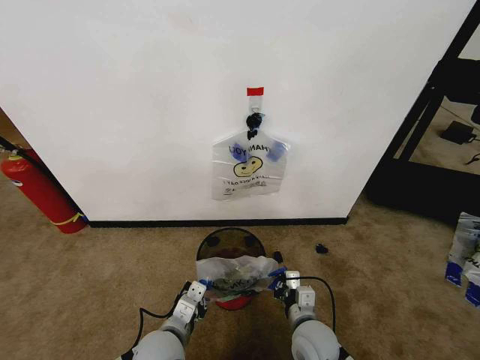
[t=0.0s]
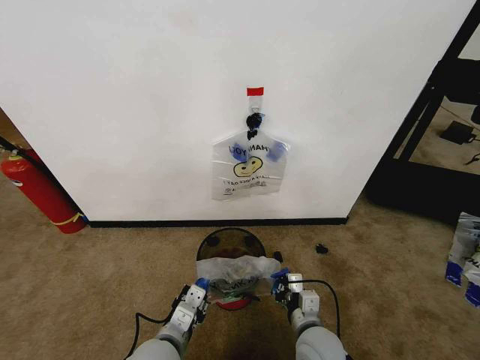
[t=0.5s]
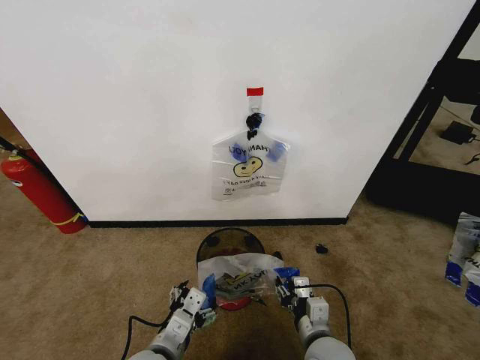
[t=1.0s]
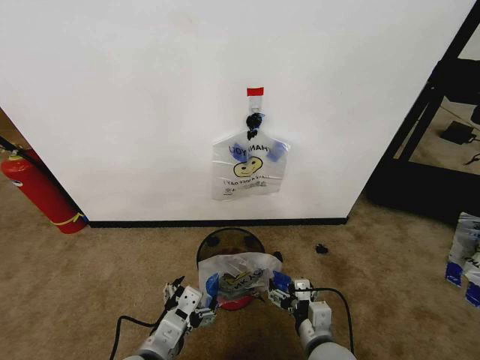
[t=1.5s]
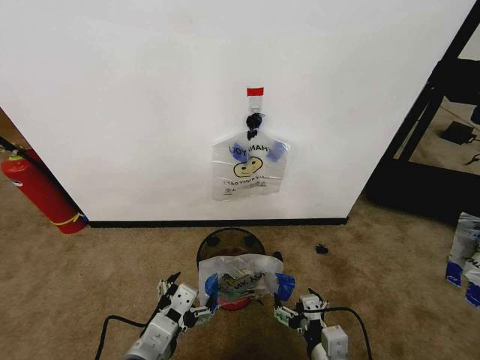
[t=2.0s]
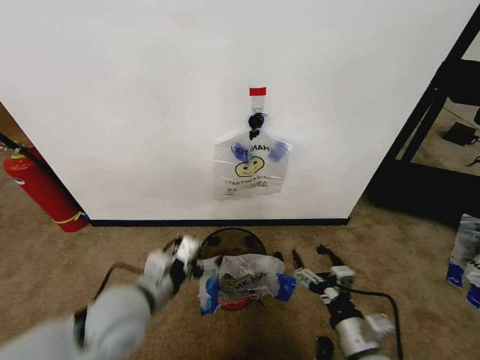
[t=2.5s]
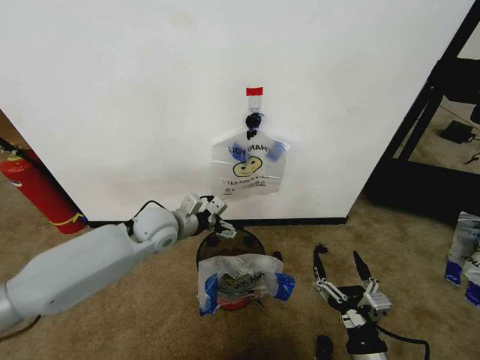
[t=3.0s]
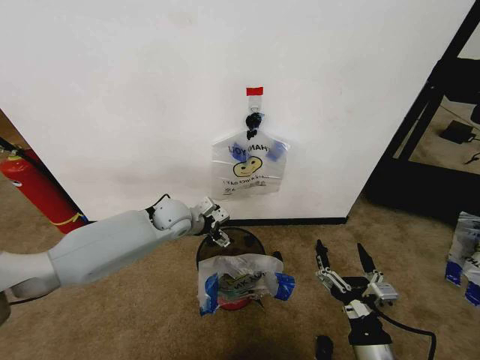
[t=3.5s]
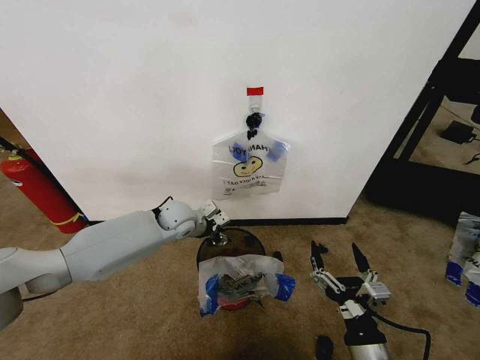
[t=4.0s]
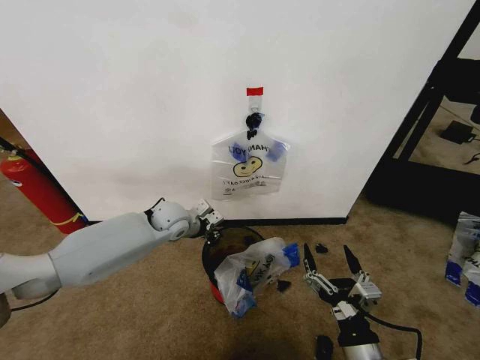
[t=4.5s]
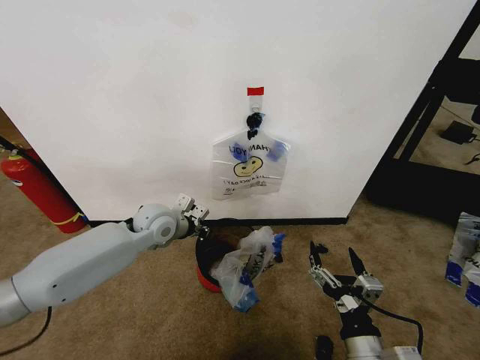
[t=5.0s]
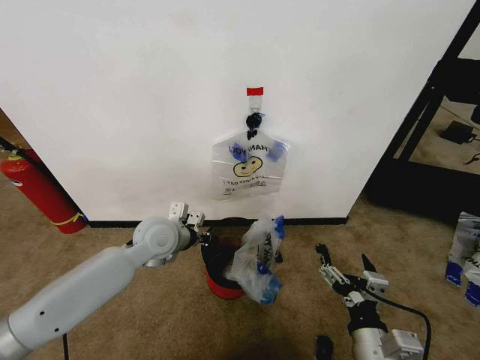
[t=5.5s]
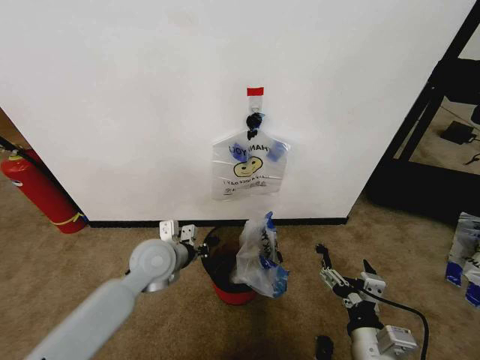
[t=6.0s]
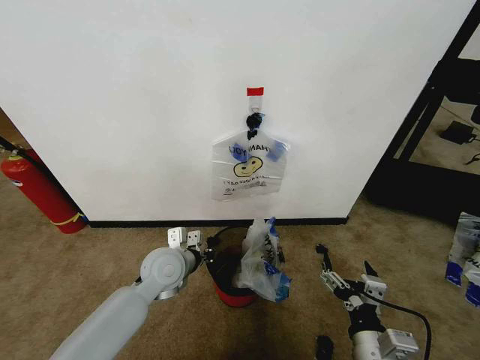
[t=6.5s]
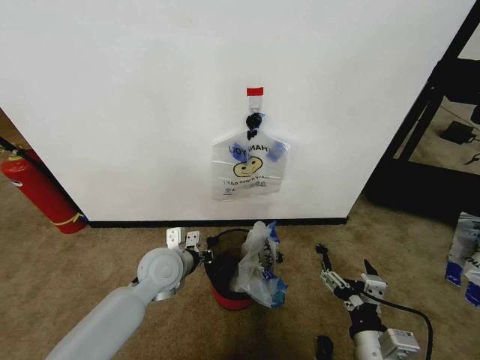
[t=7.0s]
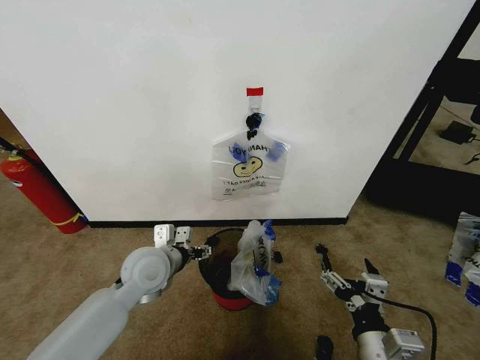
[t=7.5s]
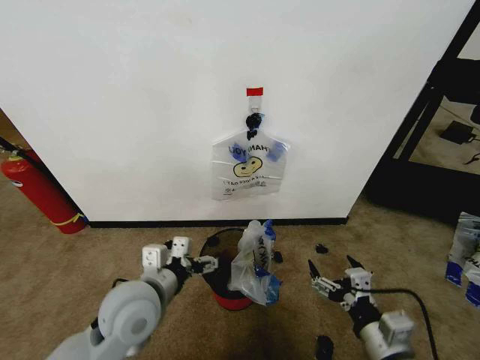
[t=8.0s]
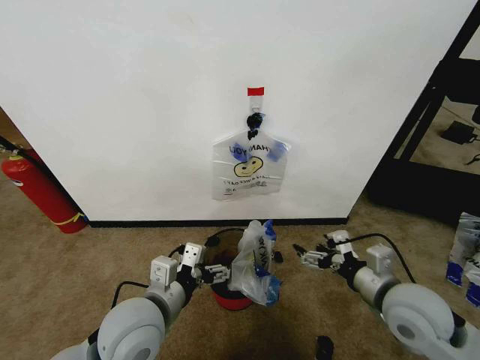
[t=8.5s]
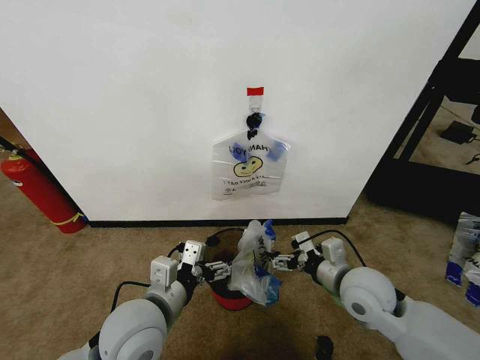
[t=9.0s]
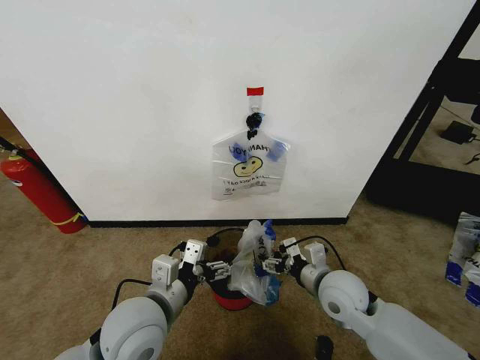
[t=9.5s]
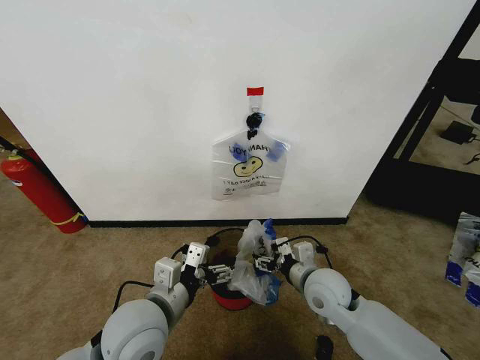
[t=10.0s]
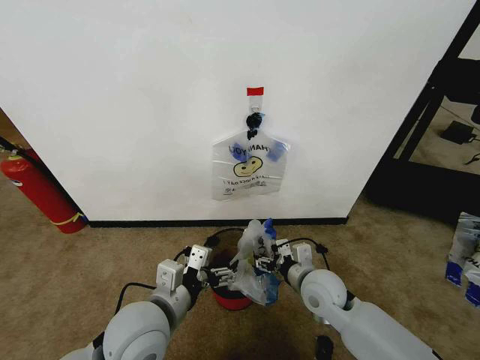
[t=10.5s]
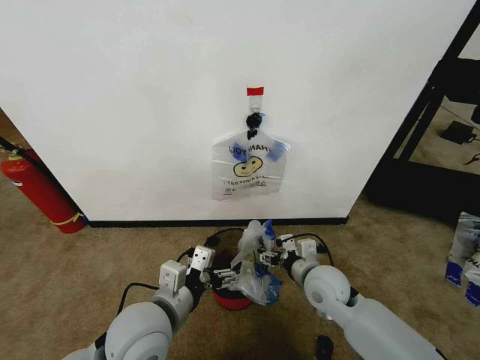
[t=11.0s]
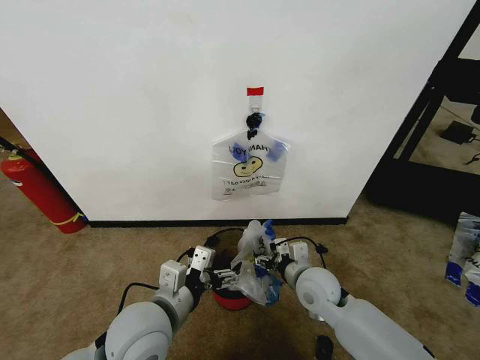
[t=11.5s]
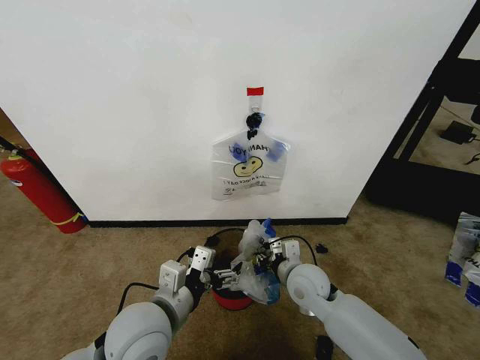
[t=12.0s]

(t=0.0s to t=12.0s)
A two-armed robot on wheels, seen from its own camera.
Task of the whole recording: Pick up the garbage bag from the wall and place it over the trash bin.
t=0.0s - t=2.0s: The right gripper heads backward, covering roughly 10 cm, and opens up; the left gripper moves upward and backward, some 15 cm, and opens.
t=2.0s - t=4.0s: The left gripper is displaced forward by some 35 cm, and closes its fingers. The right gripper ends up about 5 cm from where it was.
t=4.0s - t=6.0s: The left gripper shifts some 15 cm backward, and closes.
t=6.0s - t=8.0s: The left gripper heads backward, covering some 10 cm, and opens.
t=8.0s - t=10.0s: The right gripper is displaced forward and to the left by about 20 cm.
t=10.0s - t=12.0s: The right gripper closes up.

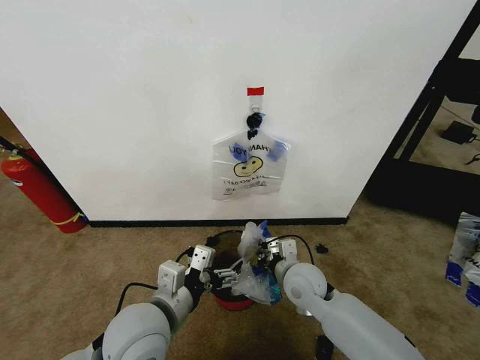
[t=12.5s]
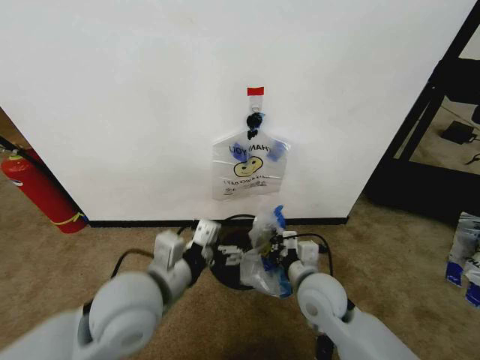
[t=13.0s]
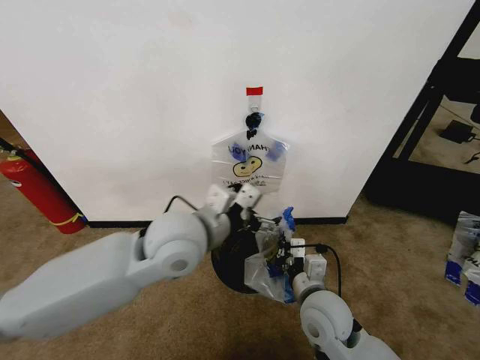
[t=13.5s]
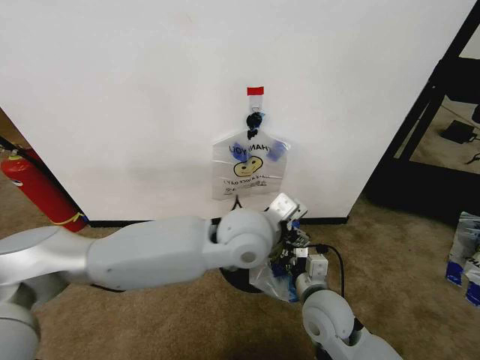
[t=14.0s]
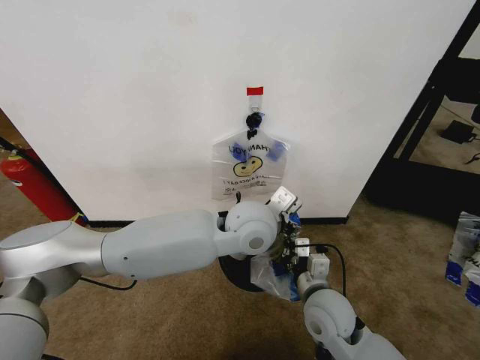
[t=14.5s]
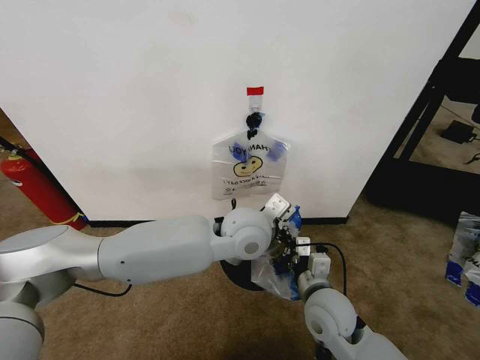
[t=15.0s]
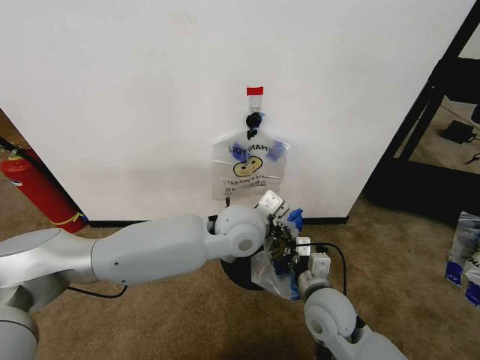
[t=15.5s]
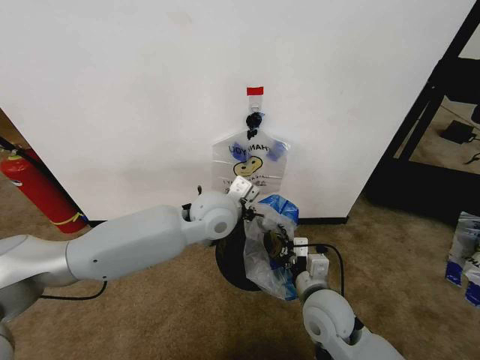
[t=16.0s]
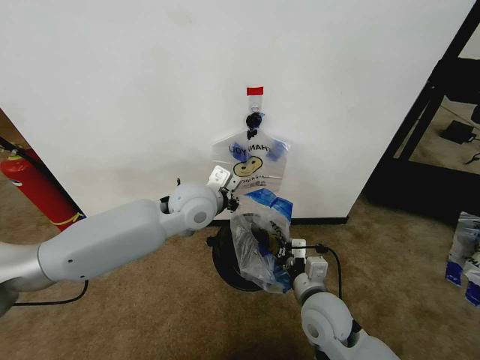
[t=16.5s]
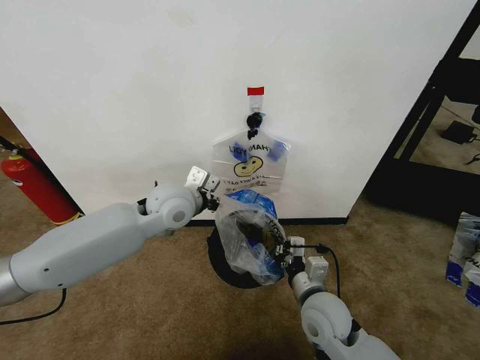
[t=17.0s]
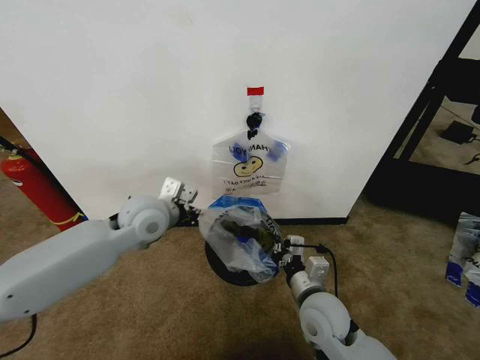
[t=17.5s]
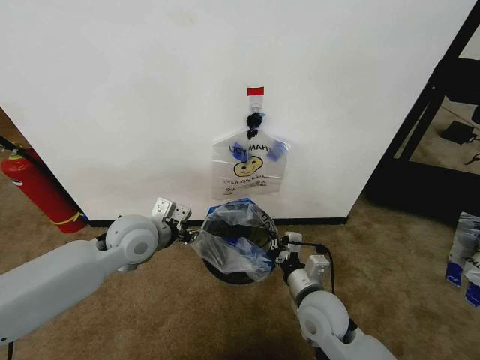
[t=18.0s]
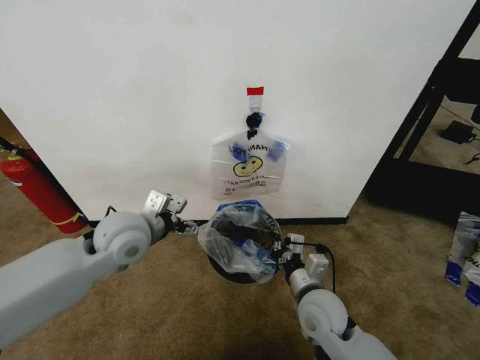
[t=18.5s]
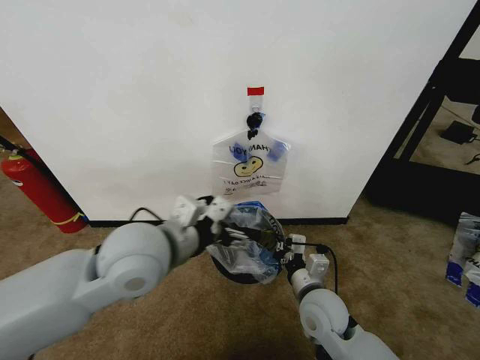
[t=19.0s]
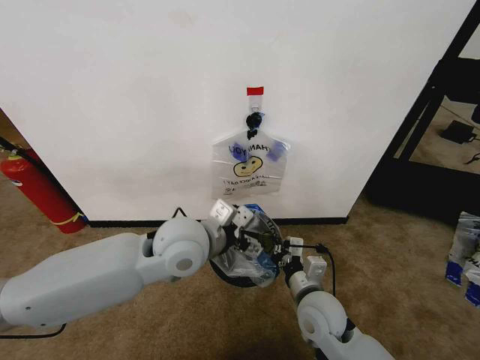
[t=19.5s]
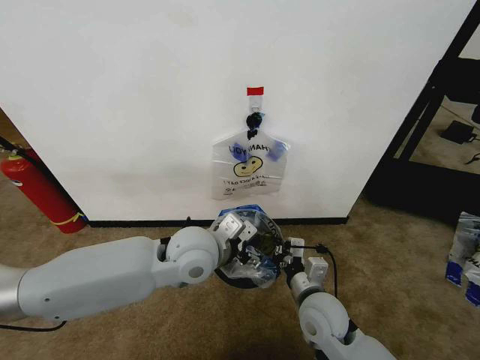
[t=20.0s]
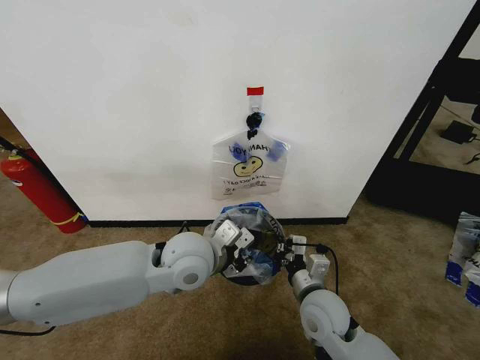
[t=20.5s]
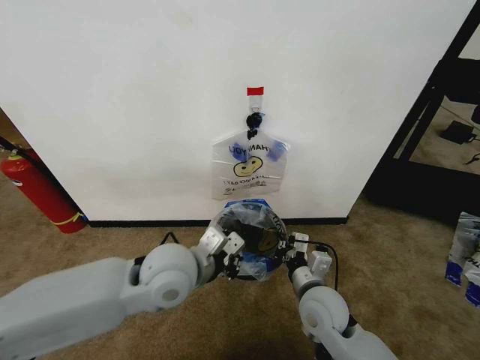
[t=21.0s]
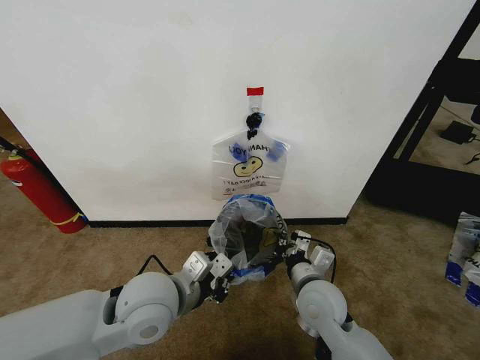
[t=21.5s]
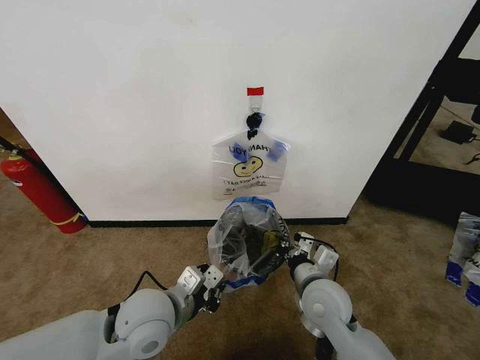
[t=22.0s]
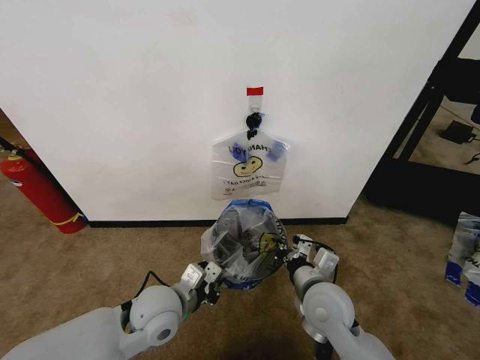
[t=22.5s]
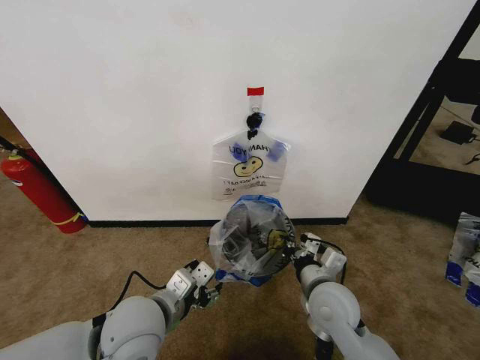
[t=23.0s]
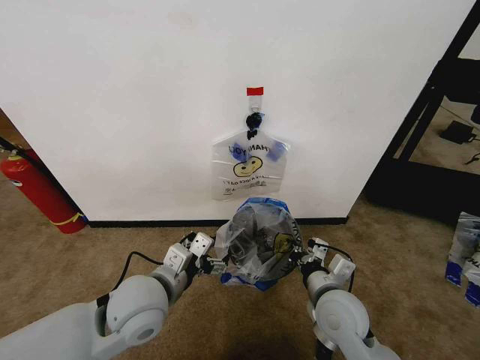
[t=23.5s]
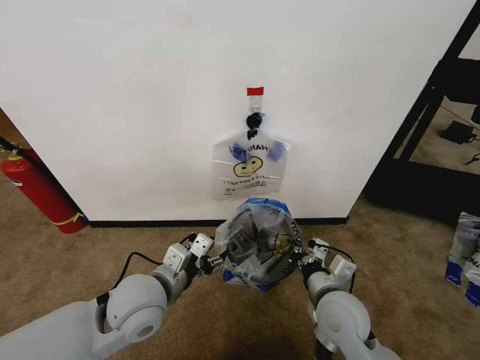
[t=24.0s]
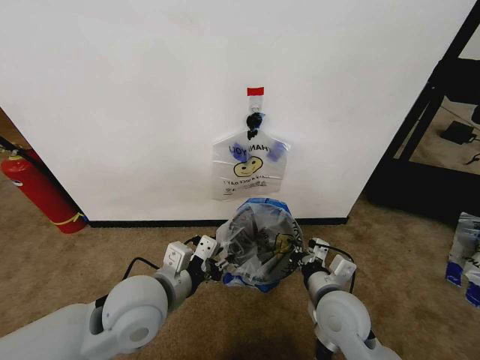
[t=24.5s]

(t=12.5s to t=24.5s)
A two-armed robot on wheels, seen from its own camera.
Task of the whole recording: Pick up the garbage bag from the wall and place it over the trash bin.
t=12.5s - t=14.5s: The left gripper shifts about 25 cm to the right, forward and upward. The right gripper travels backward by approximately 5 cm.
t=14.5s - t=16.5s: The left gripper moves to the left and forward, approximately 10 cm, and closes up.
t=16.5s - t=18.5s: The left gripper travels to the left and backward by about 15 cm, and opens up.
t=18.5s - t=20.5s: The left gripper travels to the right by approximately 10 cm, and closes.
t=20.5s - t=22.5s: The left gripper goes about 15 cm downward, to the left and backward.
t=22.5s - t=24.5s: The left gripper travels upward by about 10 cm, and opens up.

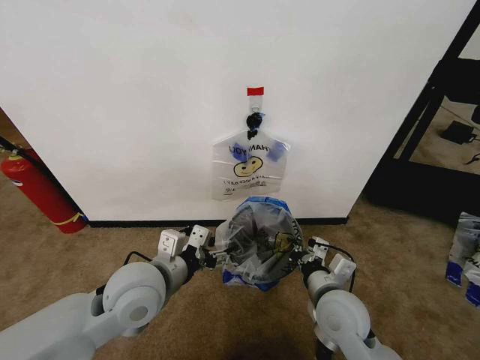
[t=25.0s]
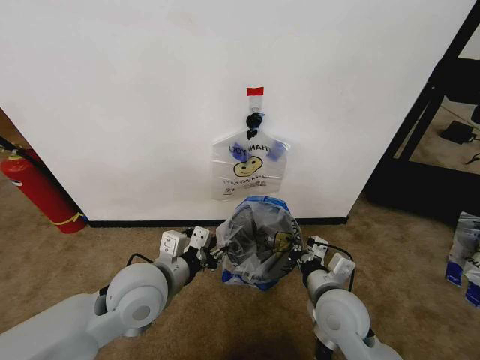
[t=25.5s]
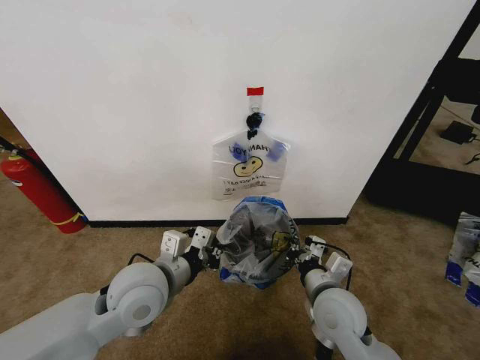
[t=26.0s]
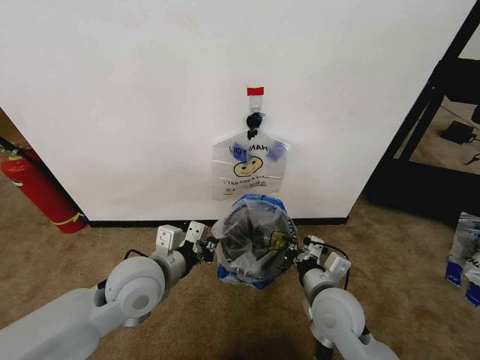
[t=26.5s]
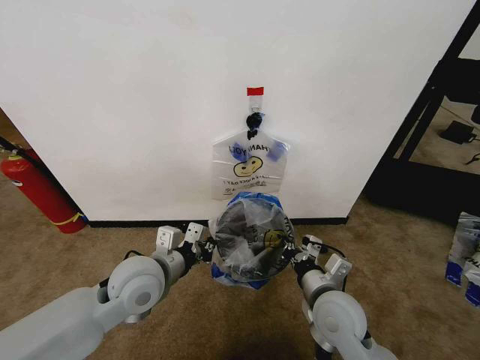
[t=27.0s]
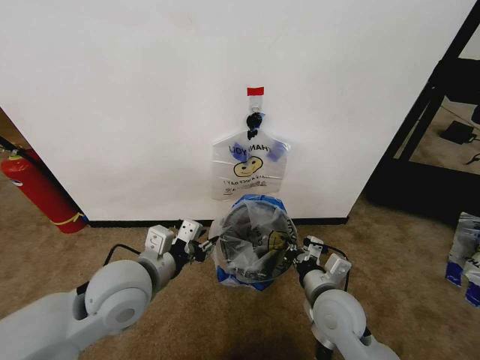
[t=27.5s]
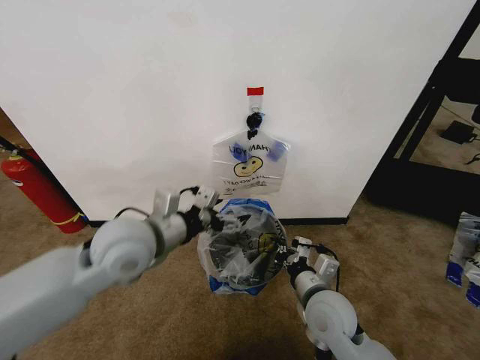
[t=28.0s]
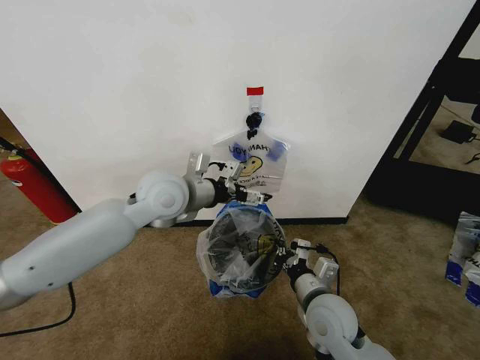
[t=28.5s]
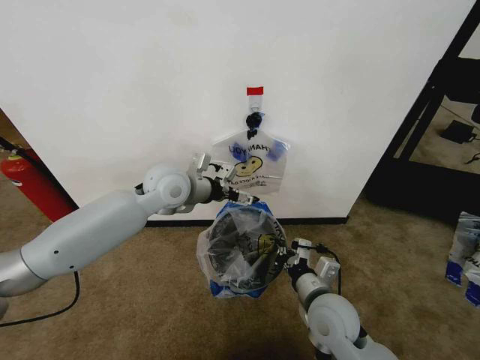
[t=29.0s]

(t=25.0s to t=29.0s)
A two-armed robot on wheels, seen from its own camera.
Task of the whole recording: Pick up the garbage bag from the wall and place it over the trash bin.
t=25.0s - t=27.0s: The left gripper closes up.
t=27.0s - t=29.0s: The left gripper travels forward and upward by about 20 cm, and opens up.
